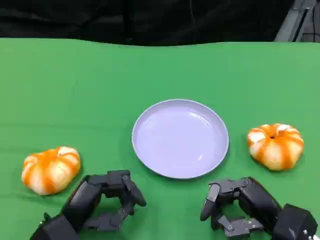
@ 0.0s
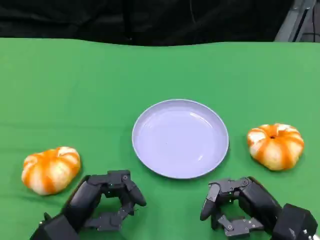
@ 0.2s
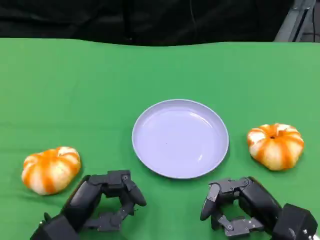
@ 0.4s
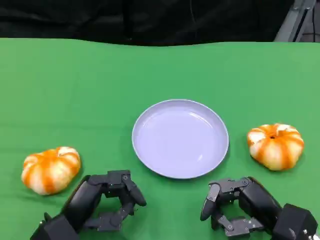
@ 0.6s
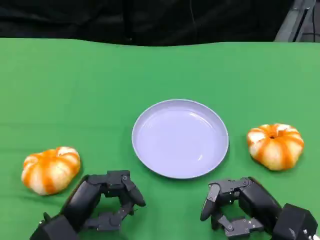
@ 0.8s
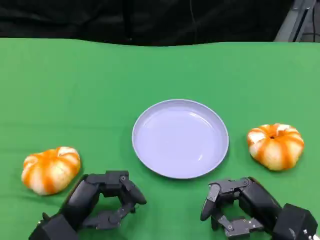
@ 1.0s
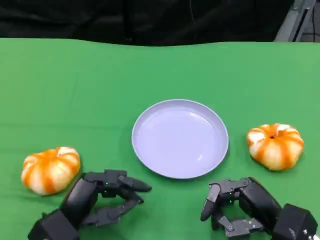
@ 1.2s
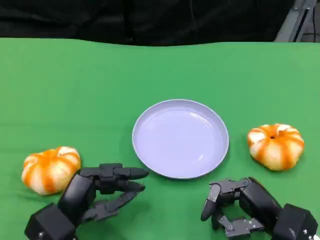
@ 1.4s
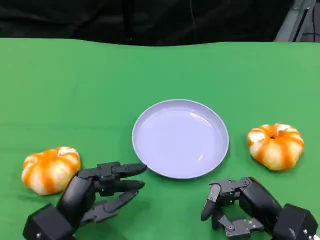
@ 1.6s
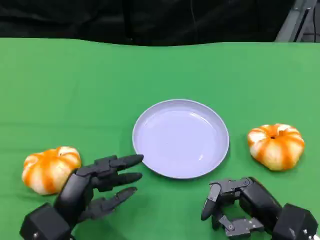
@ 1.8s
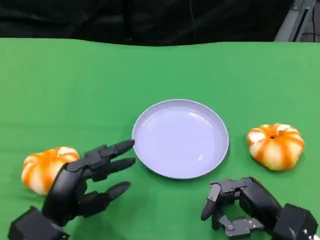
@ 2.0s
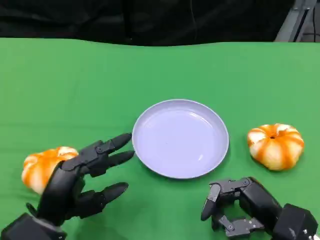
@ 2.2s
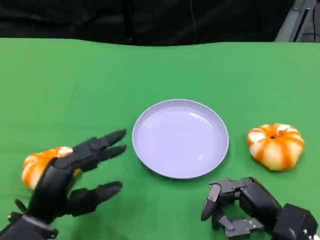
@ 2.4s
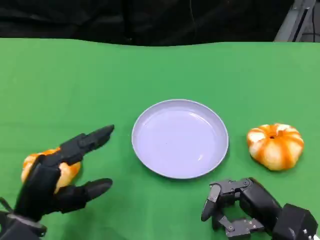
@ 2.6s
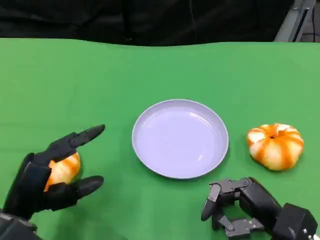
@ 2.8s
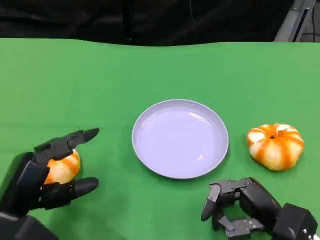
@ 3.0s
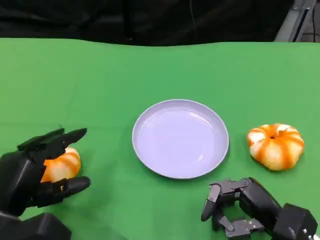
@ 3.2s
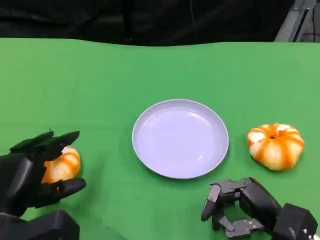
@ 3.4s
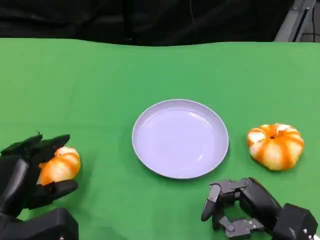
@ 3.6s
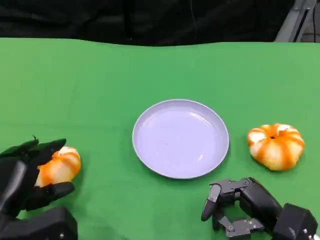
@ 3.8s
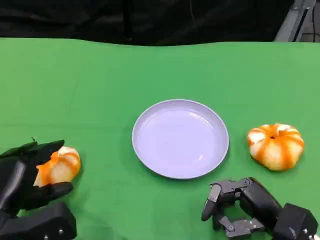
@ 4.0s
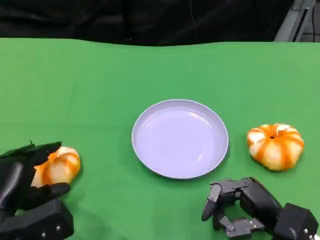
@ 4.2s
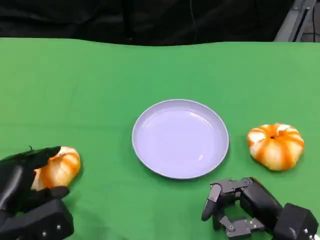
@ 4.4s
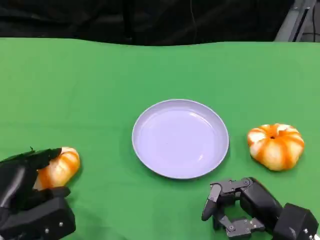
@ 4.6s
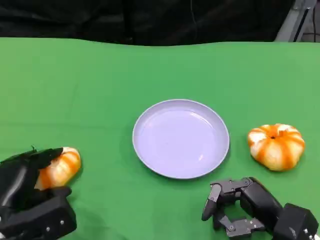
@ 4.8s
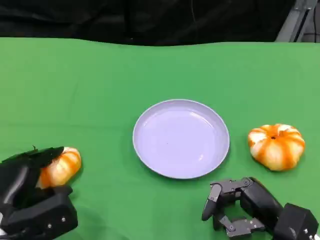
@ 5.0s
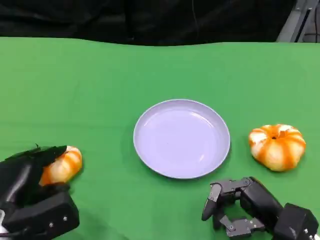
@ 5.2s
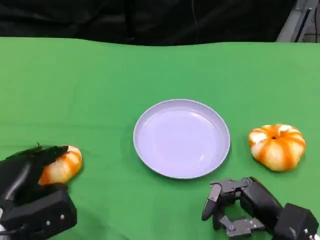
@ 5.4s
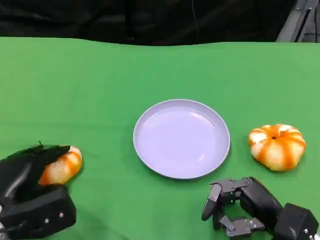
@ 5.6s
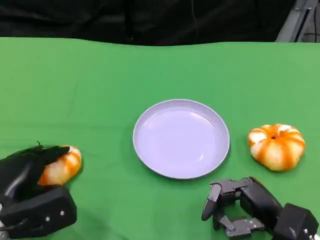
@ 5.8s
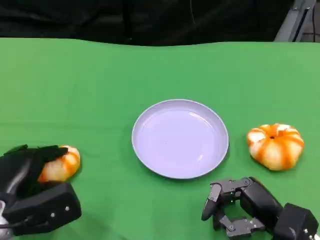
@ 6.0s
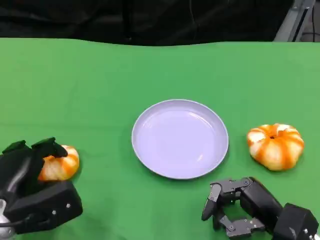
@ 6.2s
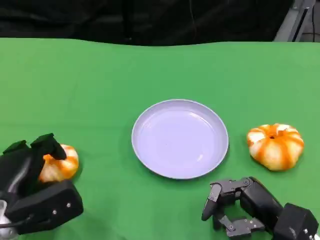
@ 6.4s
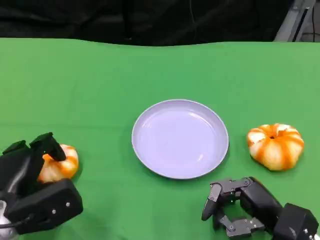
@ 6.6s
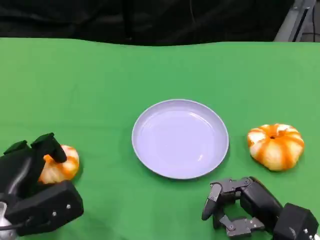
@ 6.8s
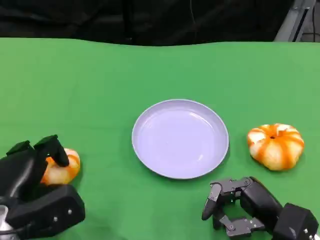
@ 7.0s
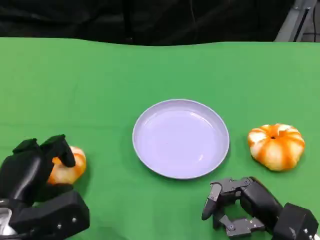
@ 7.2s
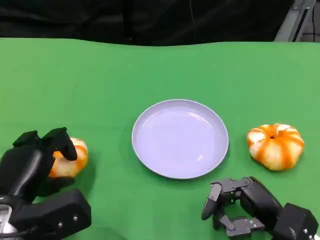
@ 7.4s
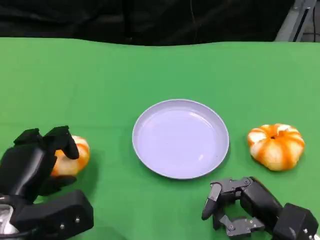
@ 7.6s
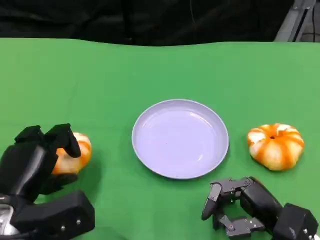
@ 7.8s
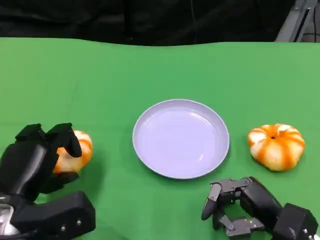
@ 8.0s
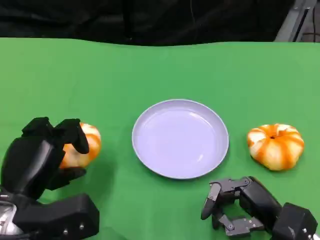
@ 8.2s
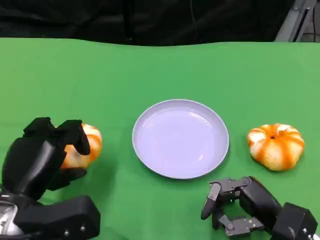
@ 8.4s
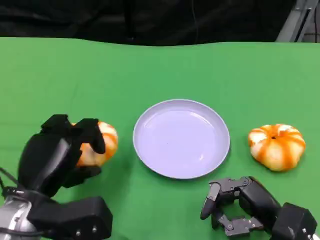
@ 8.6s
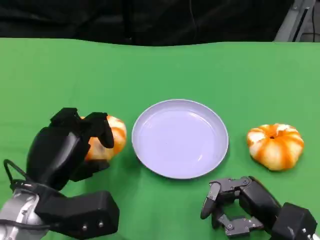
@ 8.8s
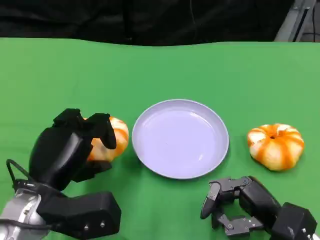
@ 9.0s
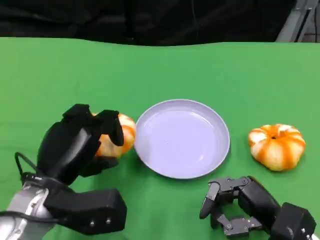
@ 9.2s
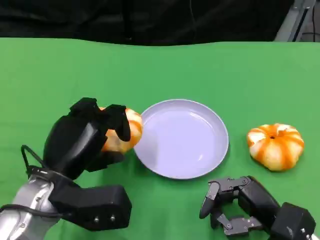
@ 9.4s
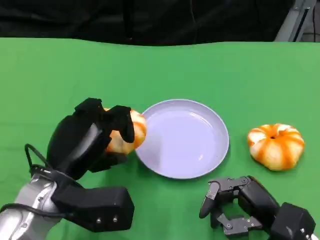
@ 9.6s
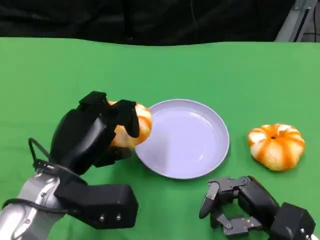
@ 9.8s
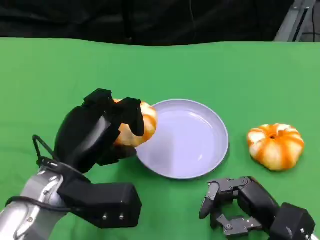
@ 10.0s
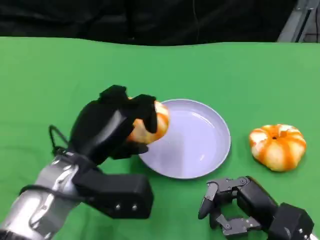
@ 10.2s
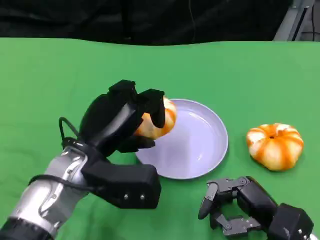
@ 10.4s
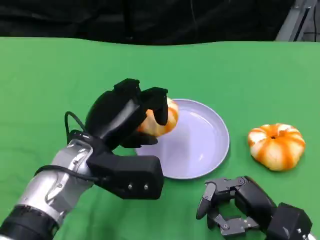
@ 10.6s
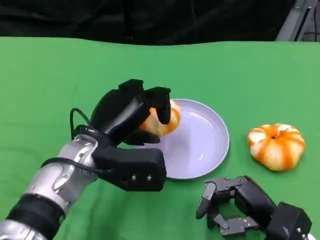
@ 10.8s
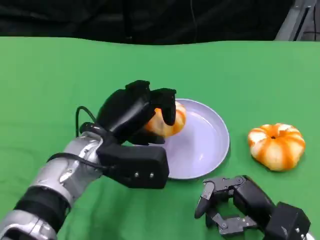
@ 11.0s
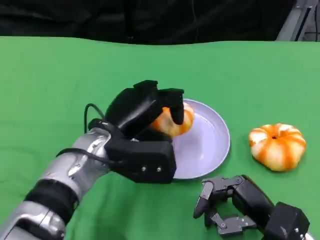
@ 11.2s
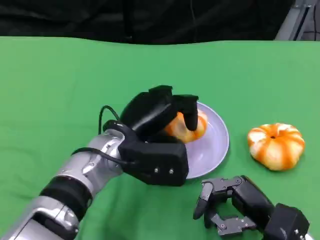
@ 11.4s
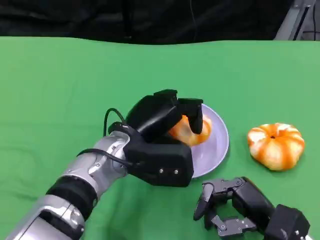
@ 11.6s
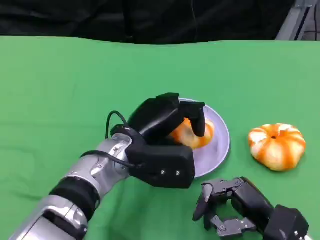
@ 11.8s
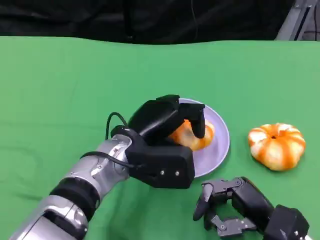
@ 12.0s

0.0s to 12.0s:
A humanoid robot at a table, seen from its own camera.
Task of the whole recording: Grasp the bread from the table and place it into the plate.
0.0s to 1.6s: The hands make only small movements.
1.6s to 3.0s: The left hand travels to the left by approximately 5 cm.
4.4s to 7.6s: The hands make only small movements.
7.6s to 9.0s: There are only small adjustments of the hands.
9.0s to 10.4s: The left hand heads to the right, covering approximately 5 cm.
10.4s to 12.0s: The left hand is displaced to the right by about 5 cm.

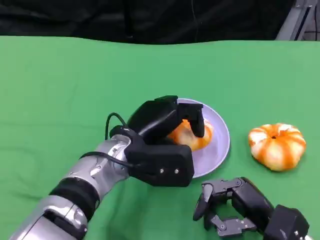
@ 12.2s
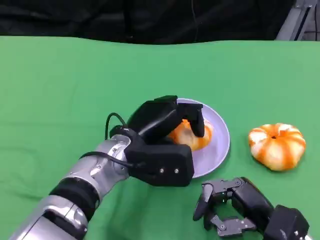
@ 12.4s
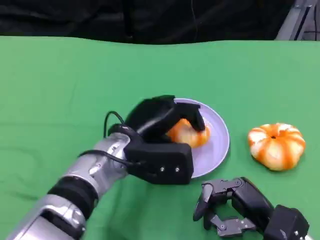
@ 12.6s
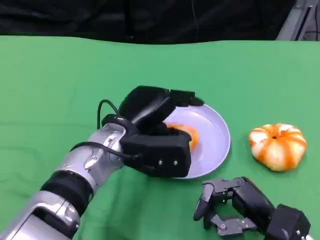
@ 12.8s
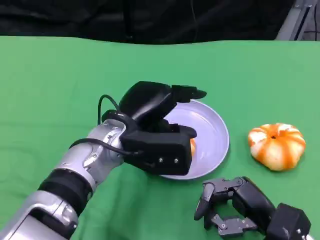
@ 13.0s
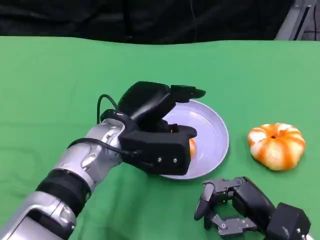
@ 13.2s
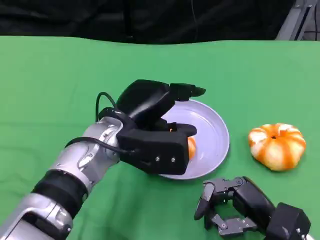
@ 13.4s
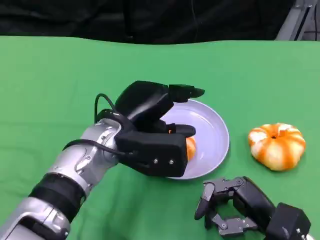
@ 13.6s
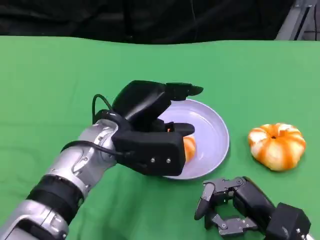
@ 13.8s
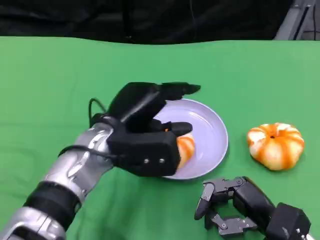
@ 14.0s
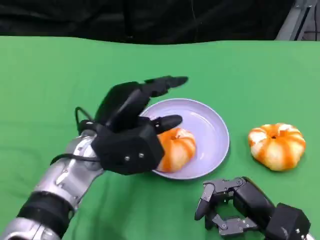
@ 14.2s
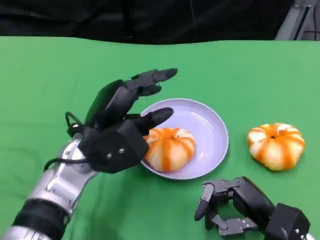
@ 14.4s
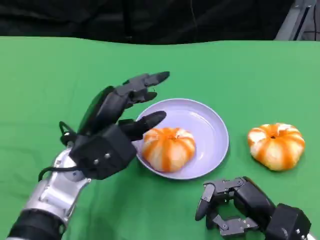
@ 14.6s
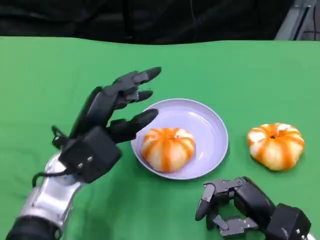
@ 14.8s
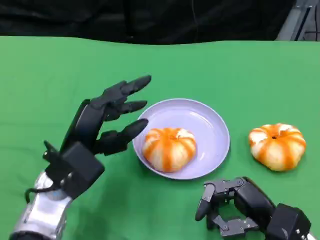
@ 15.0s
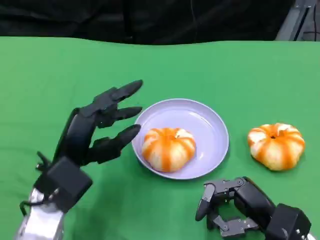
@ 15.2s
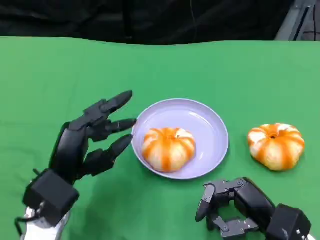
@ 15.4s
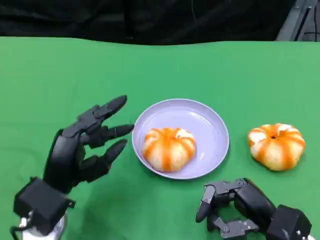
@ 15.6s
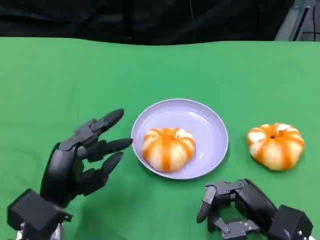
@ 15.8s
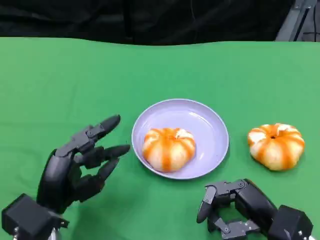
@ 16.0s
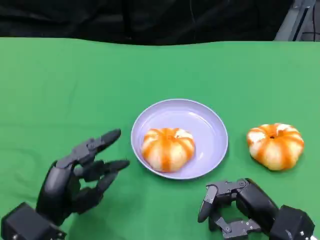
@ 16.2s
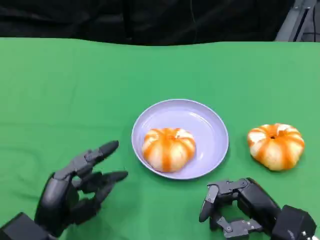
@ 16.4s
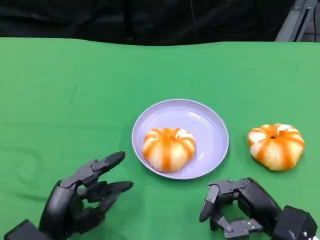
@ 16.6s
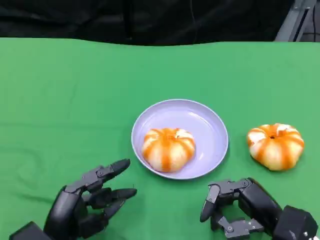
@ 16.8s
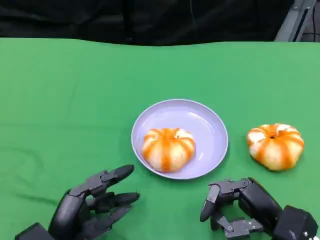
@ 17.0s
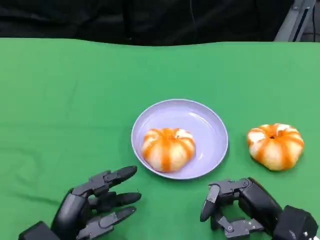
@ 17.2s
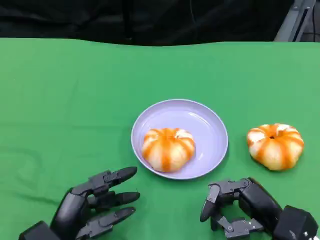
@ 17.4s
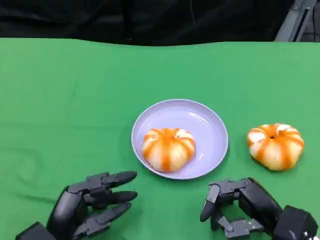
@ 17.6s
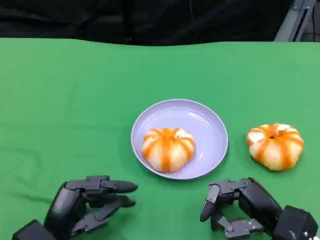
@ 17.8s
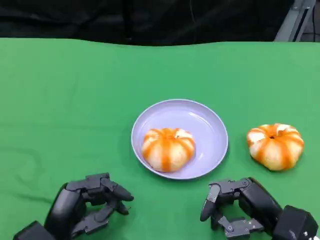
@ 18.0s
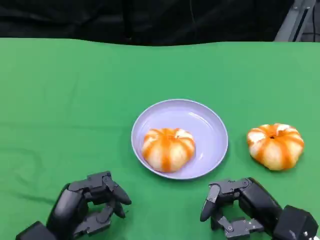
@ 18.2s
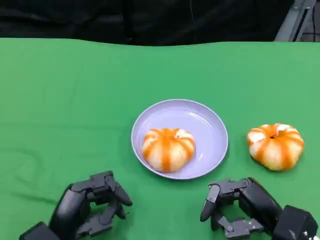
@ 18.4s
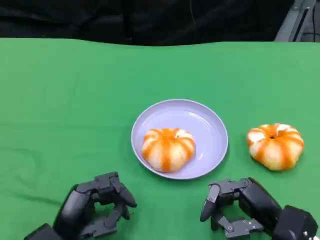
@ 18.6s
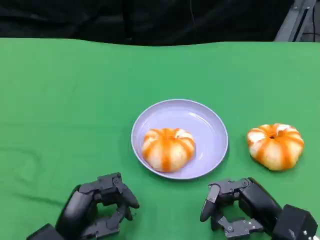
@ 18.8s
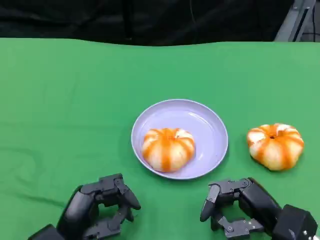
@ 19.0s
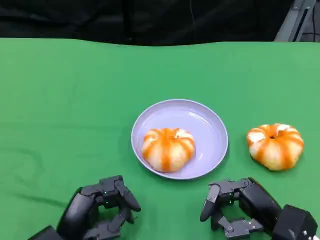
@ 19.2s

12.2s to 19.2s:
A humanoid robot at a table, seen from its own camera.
Task of the whole recording: Grasp the bread from the table and place it into the plate.
12.2s to 13.6s: The hands move only a little.
13.6s to 15.0s: The left hand is displaced to the left by approximately 5 cm.
15.0s to 16.4s: The left hand is displaced backward and downward by roughly 10 cm.
16.4s to 19.2s: The hands stay close to where they were, moving slightly.

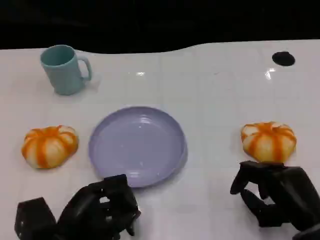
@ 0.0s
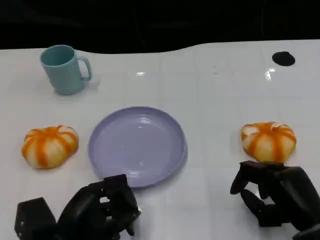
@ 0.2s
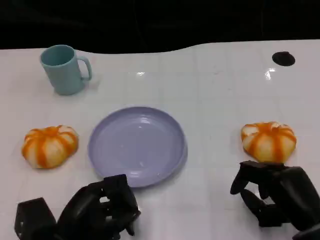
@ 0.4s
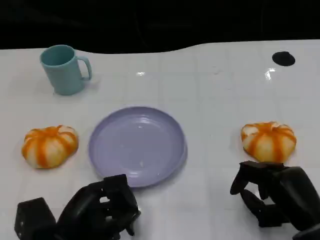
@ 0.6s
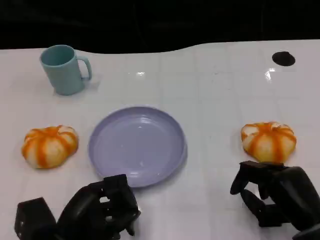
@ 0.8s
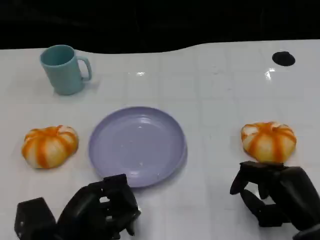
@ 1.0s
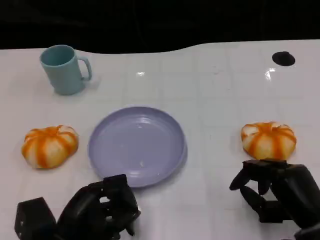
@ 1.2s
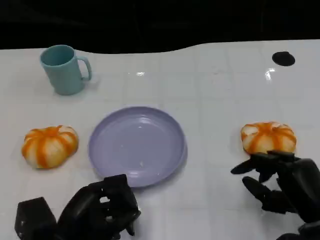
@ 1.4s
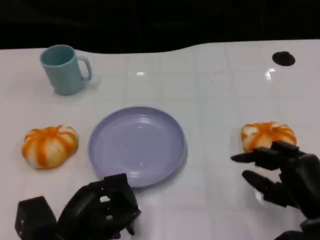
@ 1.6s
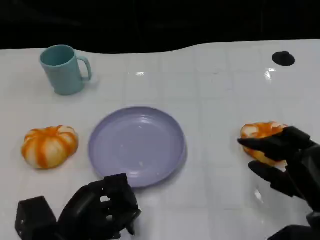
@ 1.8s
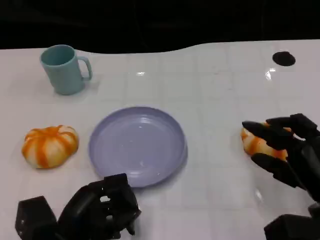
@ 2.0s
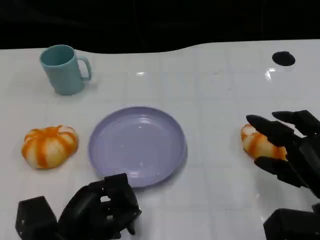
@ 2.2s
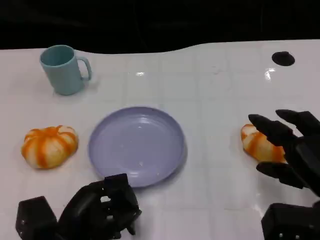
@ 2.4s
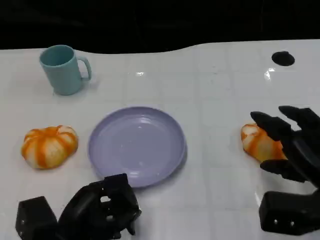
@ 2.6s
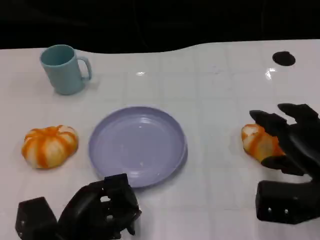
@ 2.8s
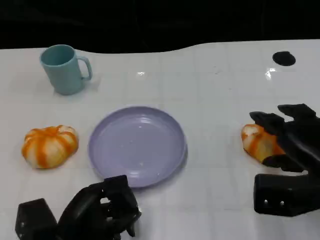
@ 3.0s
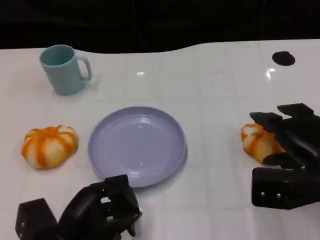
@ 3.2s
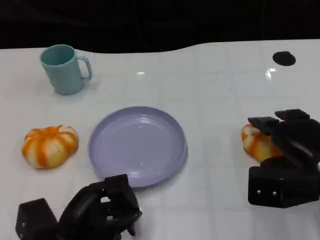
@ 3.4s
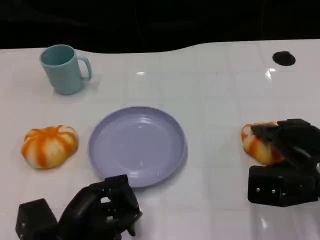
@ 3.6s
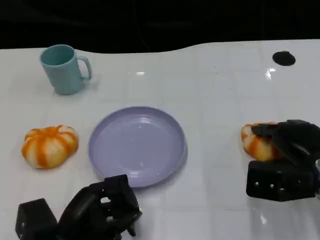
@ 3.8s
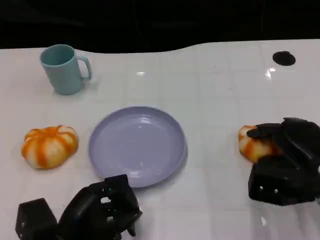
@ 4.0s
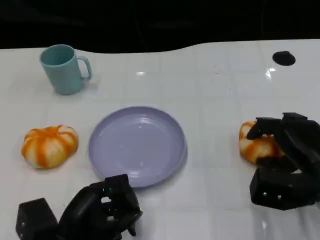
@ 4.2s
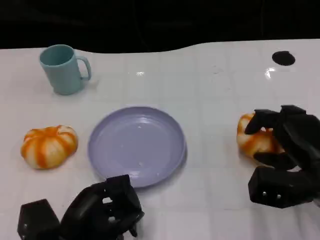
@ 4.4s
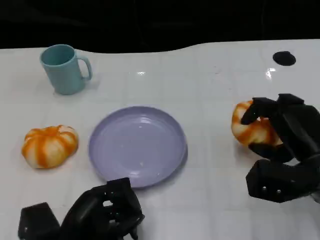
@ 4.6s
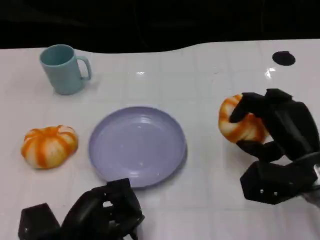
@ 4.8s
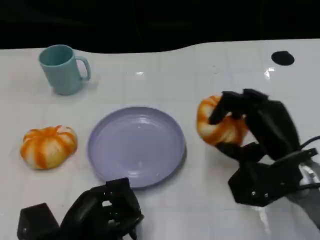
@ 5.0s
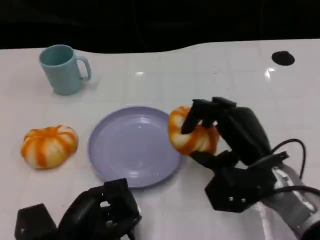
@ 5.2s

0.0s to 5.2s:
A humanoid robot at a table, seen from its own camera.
Task of the whole recording: Grasp the bread from the table and place it into the plate.
0.0s to 1.8s: The hands make only small movements.
1.8s to 3.4s: The right hand moves forward, about 5 cm.
3.4s to 5.2s: The right hand travels to the left by approximately 10 cm.
